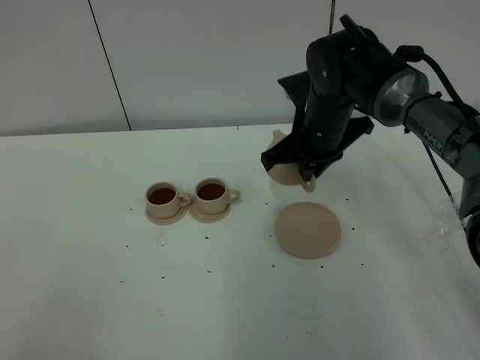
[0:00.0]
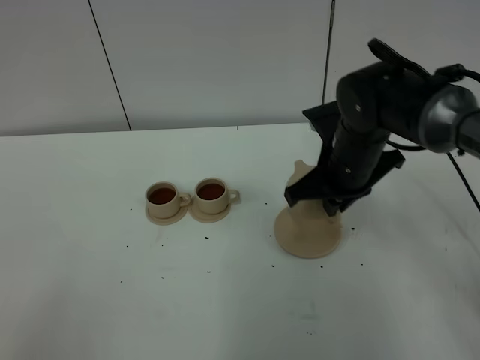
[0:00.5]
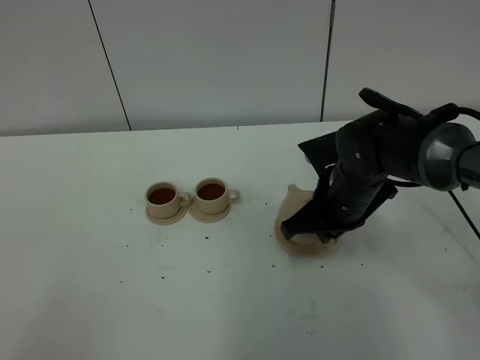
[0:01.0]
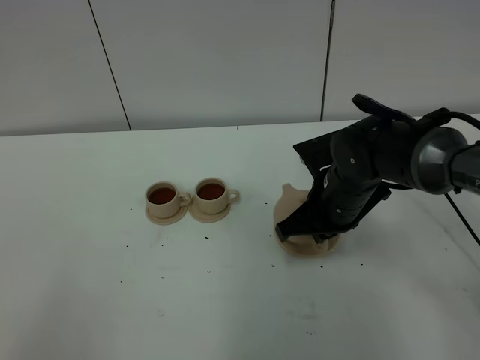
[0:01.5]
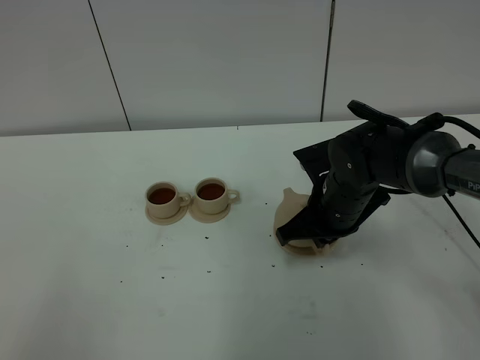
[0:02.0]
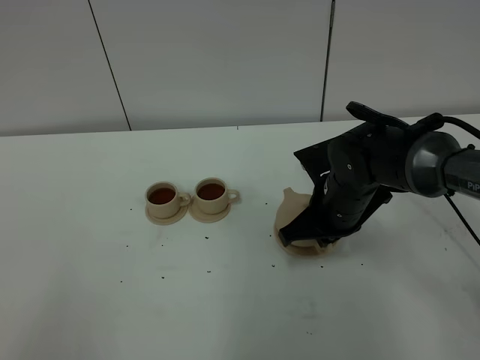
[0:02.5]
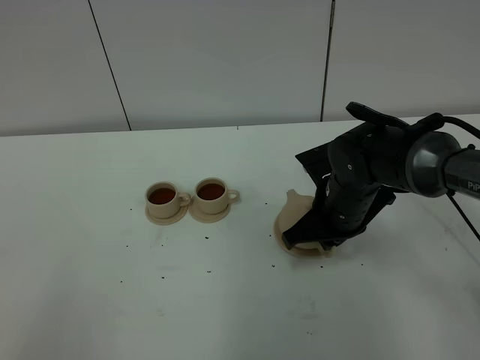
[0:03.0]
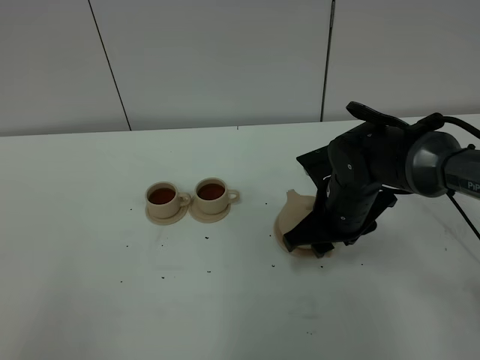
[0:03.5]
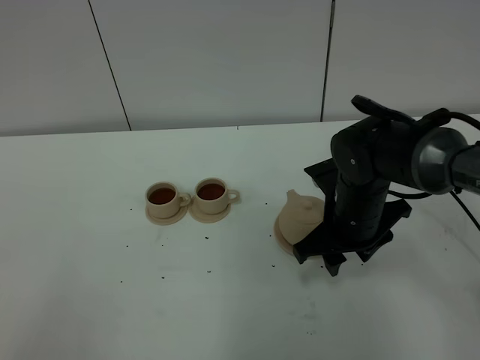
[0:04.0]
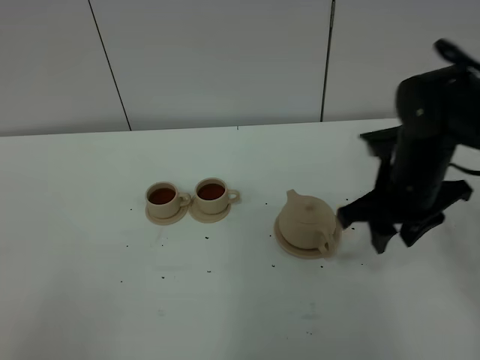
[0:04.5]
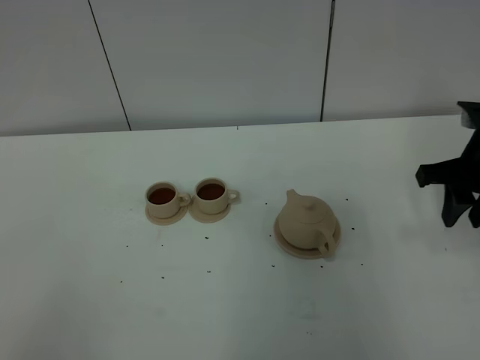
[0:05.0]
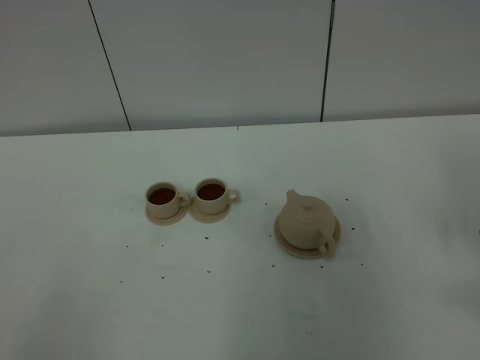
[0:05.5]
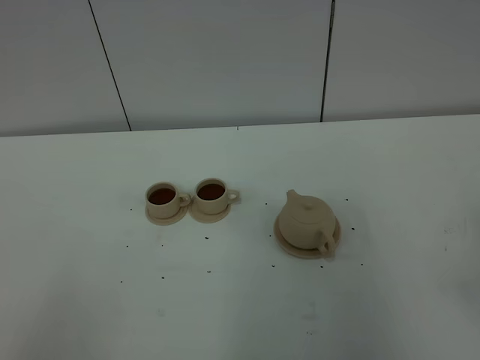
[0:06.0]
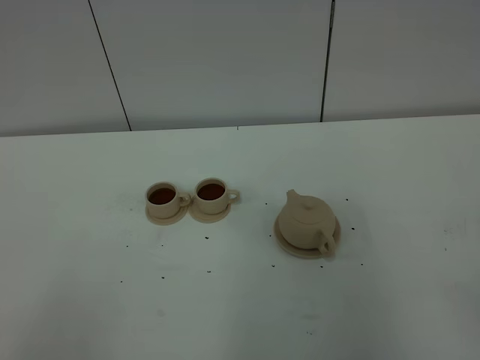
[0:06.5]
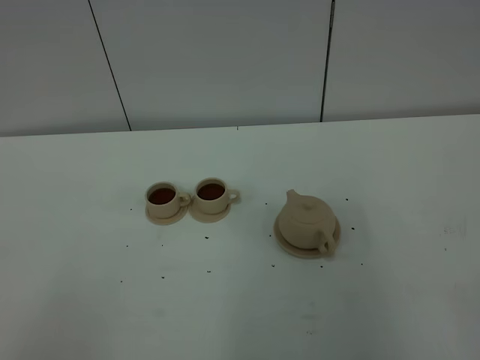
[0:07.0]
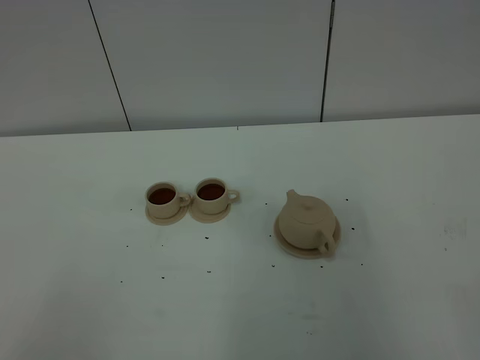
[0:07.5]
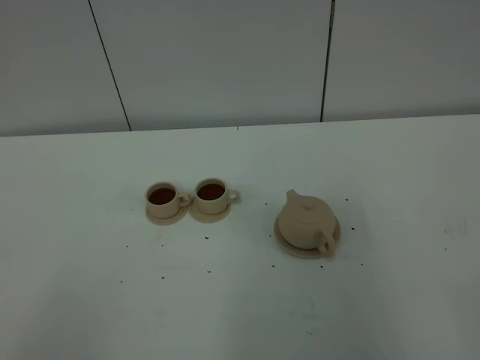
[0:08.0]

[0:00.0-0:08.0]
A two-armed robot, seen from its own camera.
Task of the whole recording: grasp the brown teapot and pour the tea into the two brown teacups one by one, put the brown teapot back in its original place.
0:00.0 to 0:02.0: The right gripper travels backward and downward by about 10 cm.
0:02.0 to 0:04.0: The right gripper opens.
0:04.0 to 0:06.0: The right gripper heads backward, to the right and upward, covering approximately 35 cm.

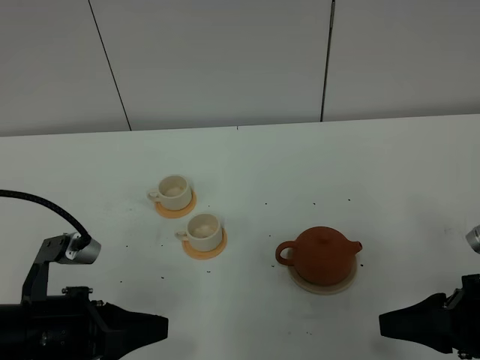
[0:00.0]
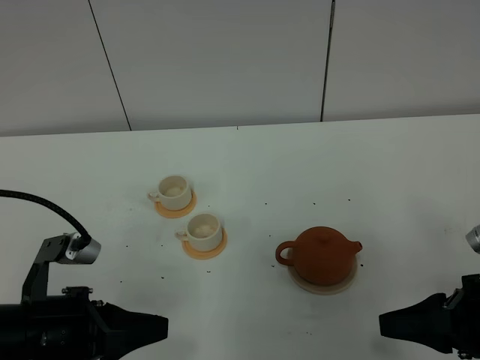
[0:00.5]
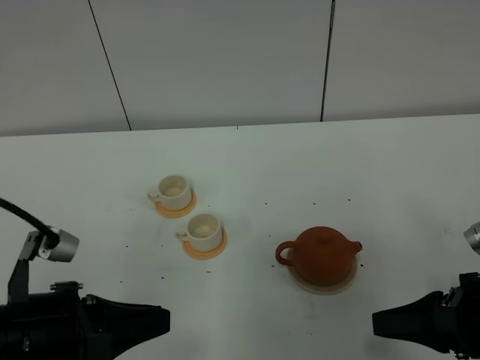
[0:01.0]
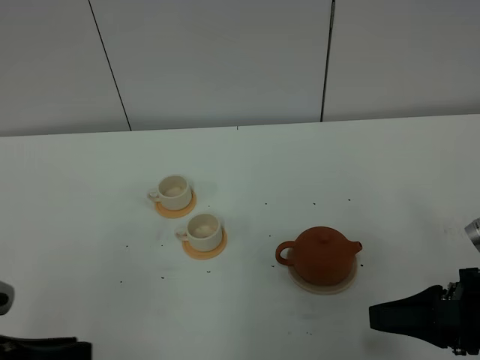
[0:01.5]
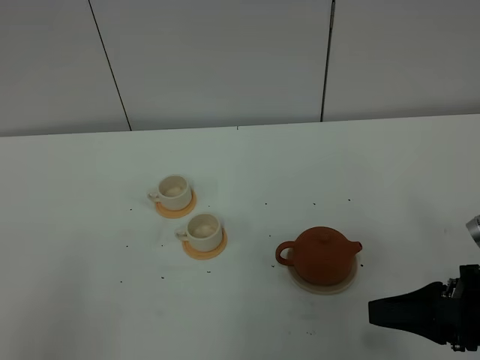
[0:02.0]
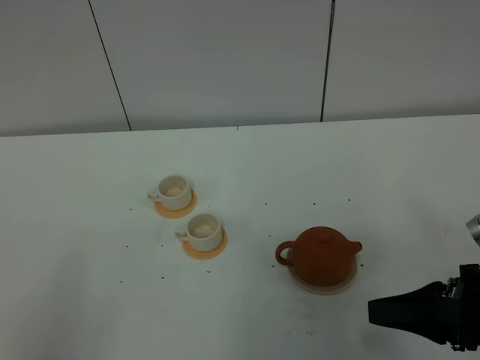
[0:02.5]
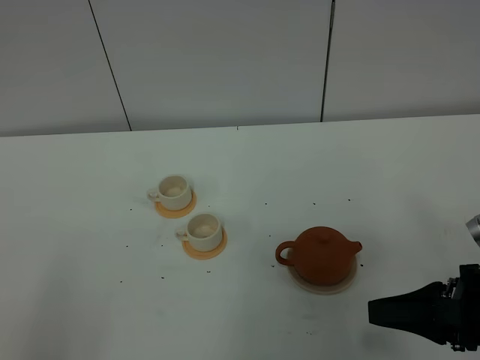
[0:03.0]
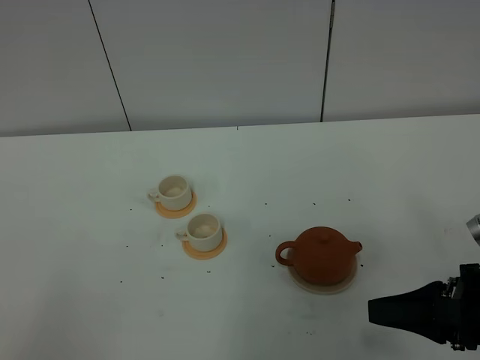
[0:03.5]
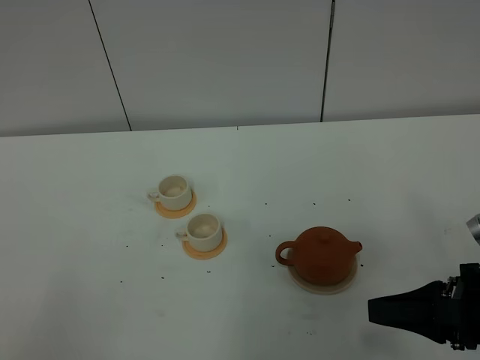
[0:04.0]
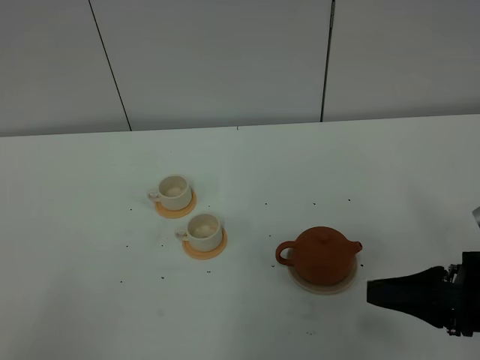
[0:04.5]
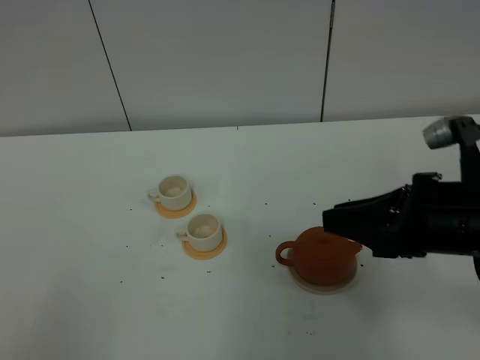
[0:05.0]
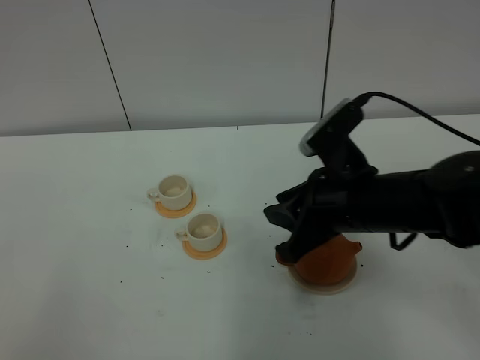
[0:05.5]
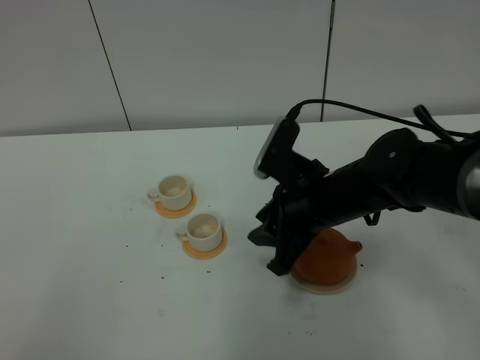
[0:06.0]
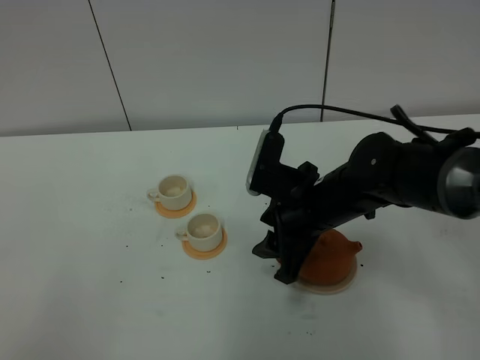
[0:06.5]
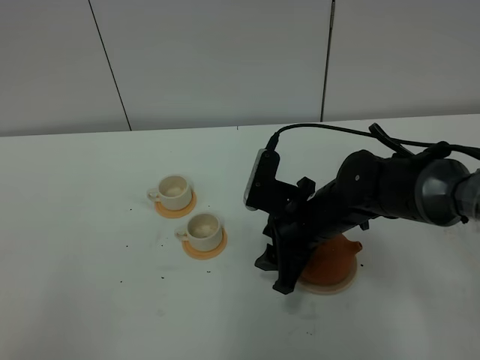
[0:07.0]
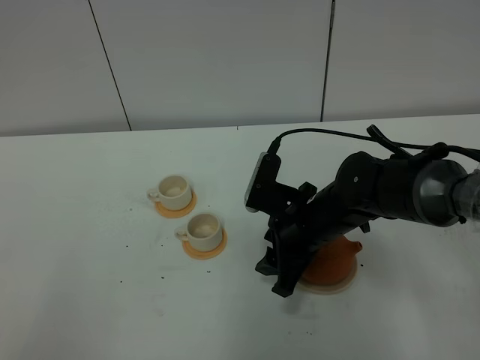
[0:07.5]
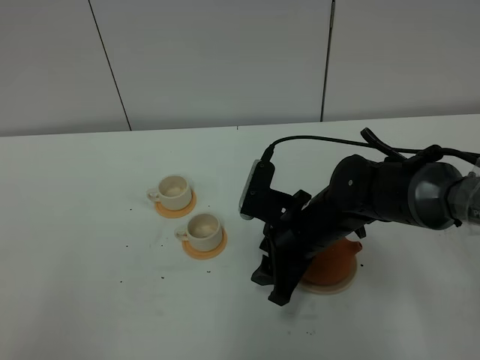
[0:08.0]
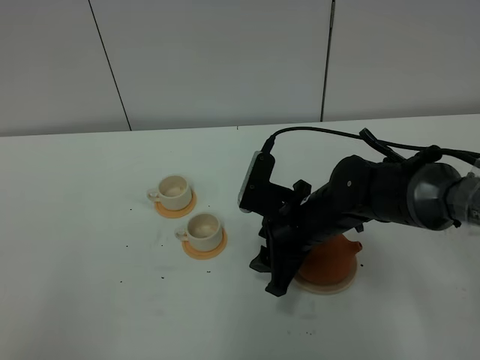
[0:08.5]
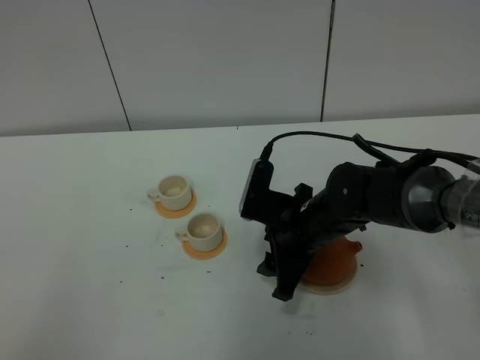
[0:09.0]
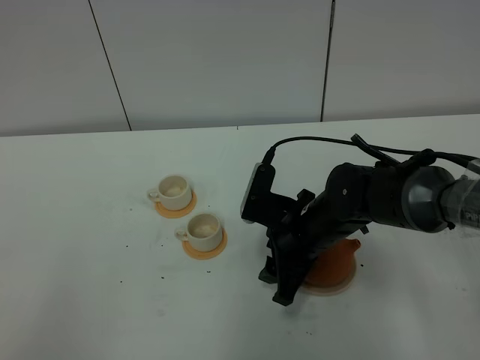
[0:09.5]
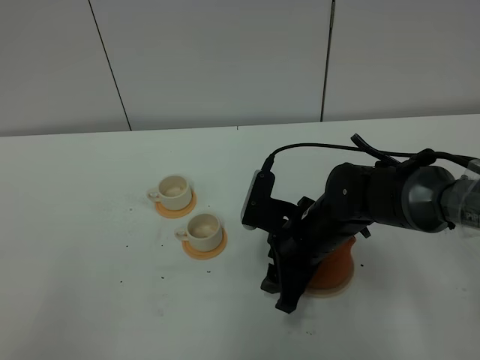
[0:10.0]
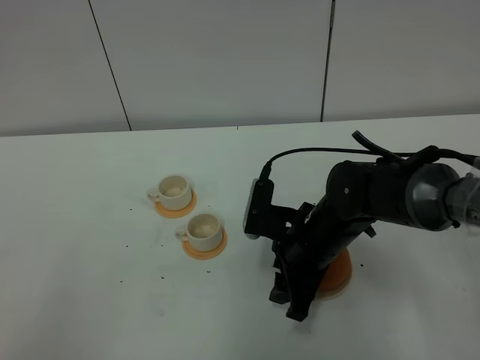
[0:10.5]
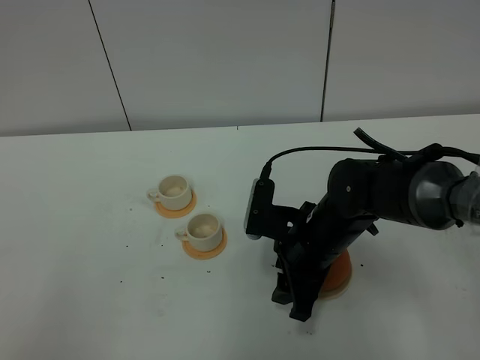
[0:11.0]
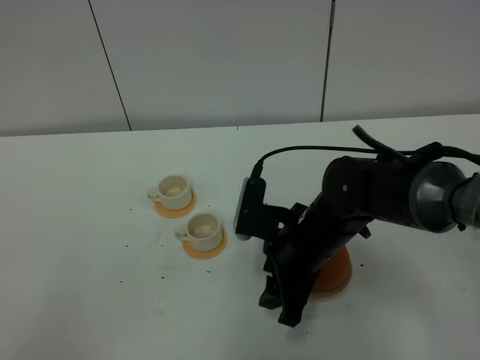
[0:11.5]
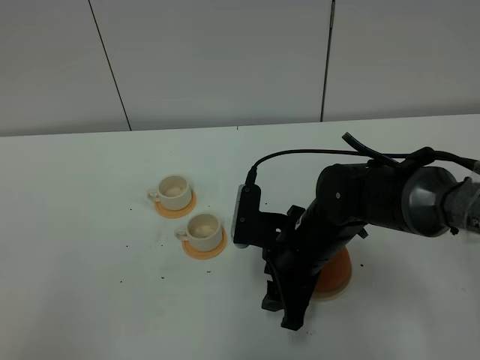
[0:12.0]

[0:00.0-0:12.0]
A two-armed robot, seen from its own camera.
Task of the whole recording: grasp the brown teapot and pour the tea into the two white teacups one by one, put the brown teapot back in its original place.
0:00.0 to 0:02.0: The left gripper travels backward, upward and to the left by some 15 cm.
0:04.0 to 0:06.0: The right gripper travels to the left and forward by roughly 20 cm.
0:06.0 to 0:08.0: The right gripper opens.
0:08.0 to 0:12.0: The grippers stay close to where they were, moving slightly.

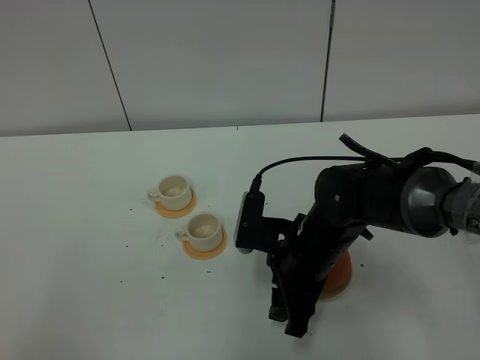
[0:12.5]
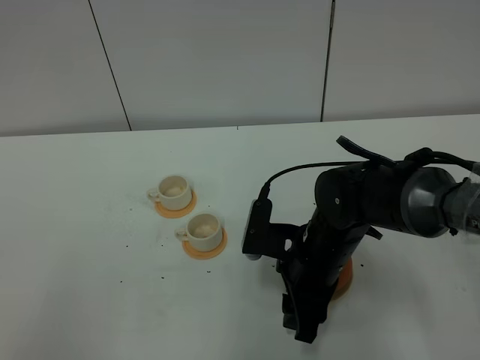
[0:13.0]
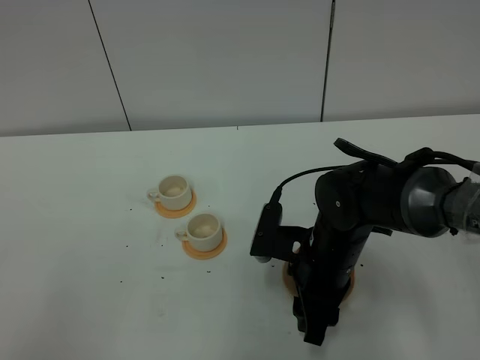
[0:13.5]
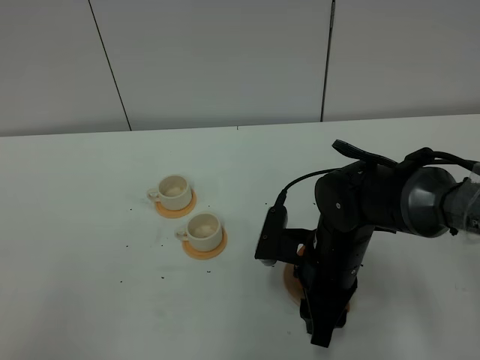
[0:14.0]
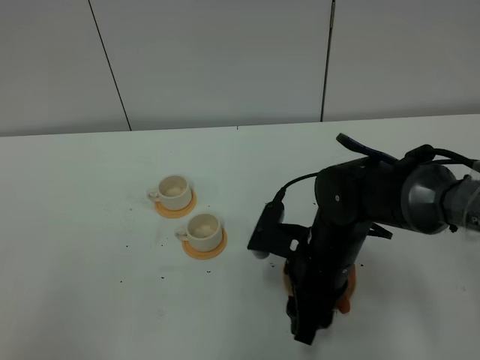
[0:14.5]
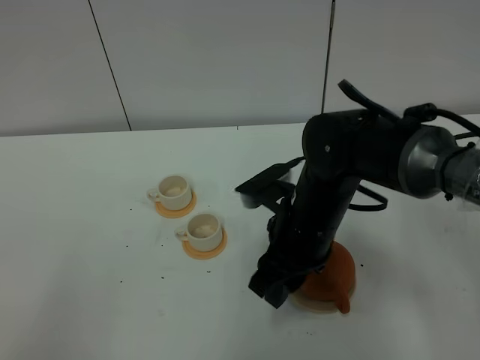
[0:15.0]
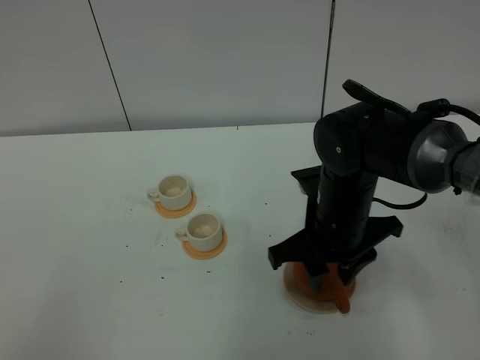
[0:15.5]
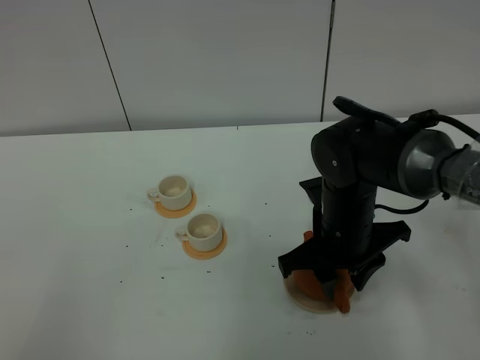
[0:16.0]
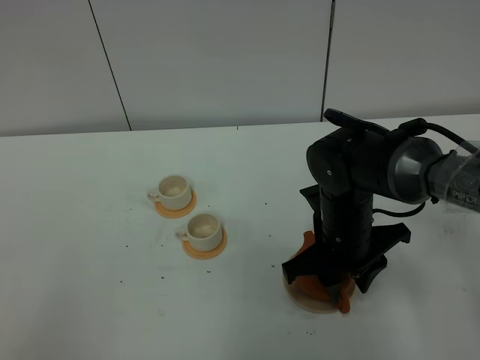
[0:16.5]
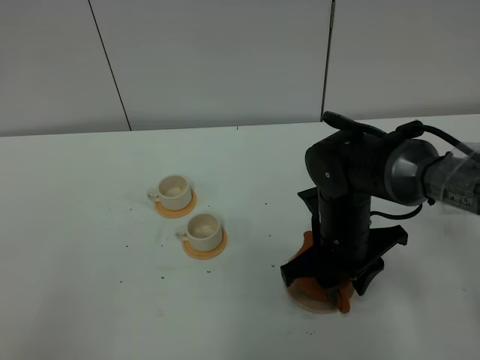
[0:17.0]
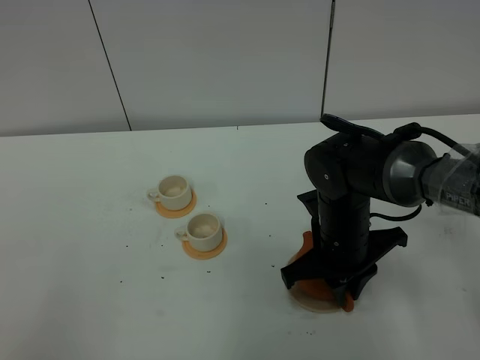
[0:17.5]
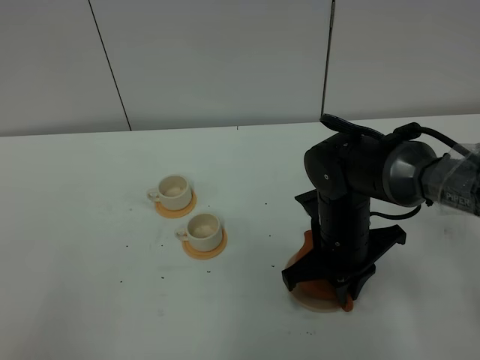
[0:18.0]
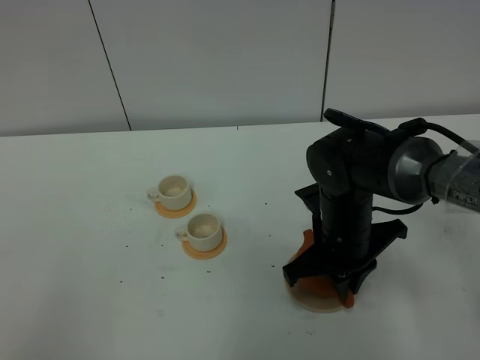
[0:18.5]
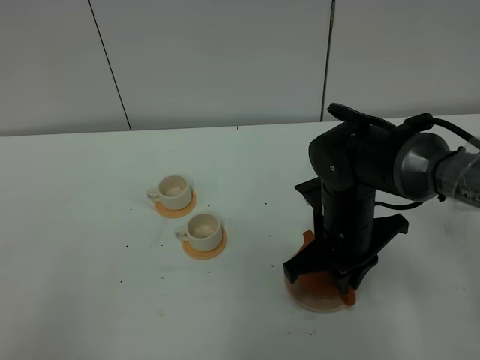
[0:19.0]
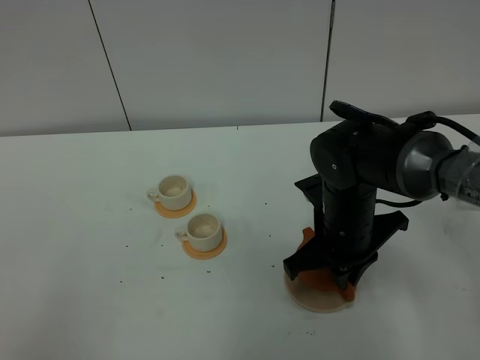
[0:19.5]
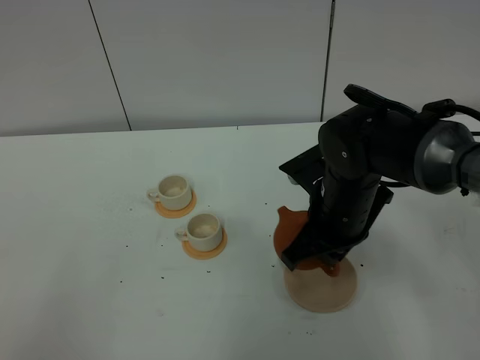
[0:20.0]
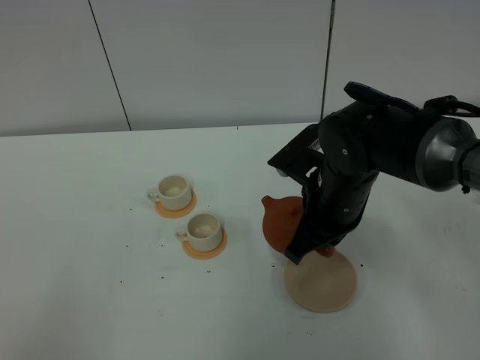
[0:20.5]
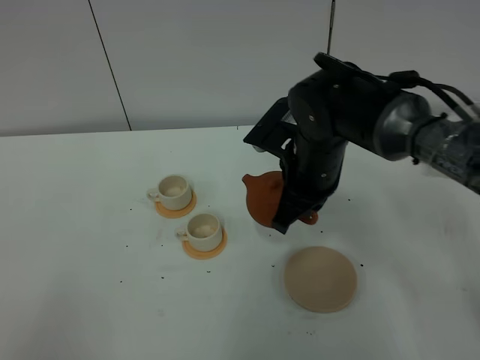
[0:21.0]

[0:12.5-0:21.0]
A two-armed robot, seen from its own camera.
Task of the whole recording: grasp the brown teapot and pour the tea into the two white teacups one by one, put the brown teapot back in its original place.
Step, 0:12.5 to 0:19.5: Pick up the teapot with the right gripper.
0:12.5 to 0:14.5: The grippers move only a little.
0:16.5 to 0:19.0: The right gripper closes up.
0:19.0 to 0:21.0: The right gripper shifts roughly 5 cm forward.
